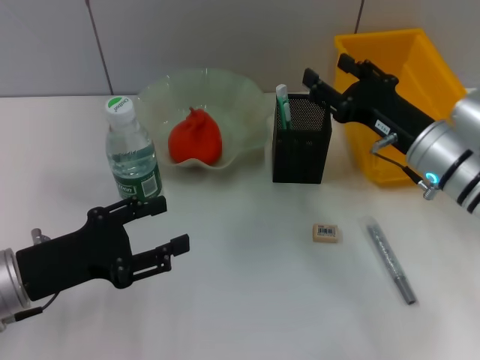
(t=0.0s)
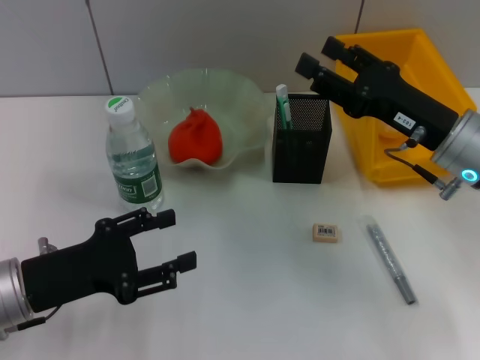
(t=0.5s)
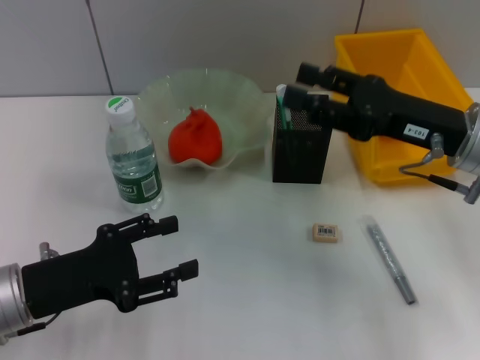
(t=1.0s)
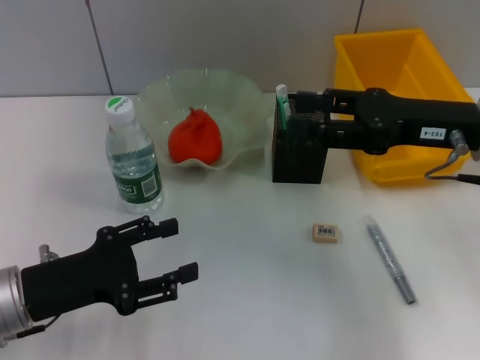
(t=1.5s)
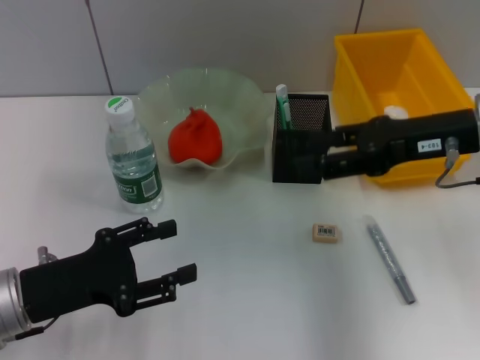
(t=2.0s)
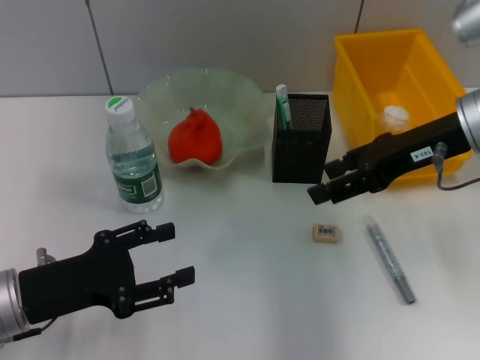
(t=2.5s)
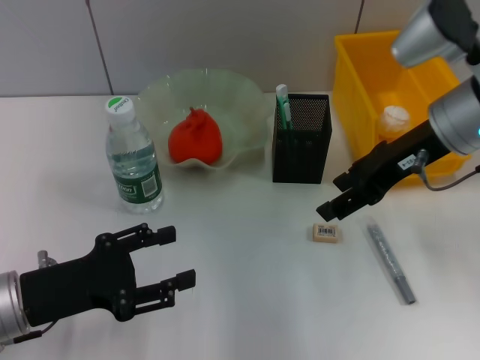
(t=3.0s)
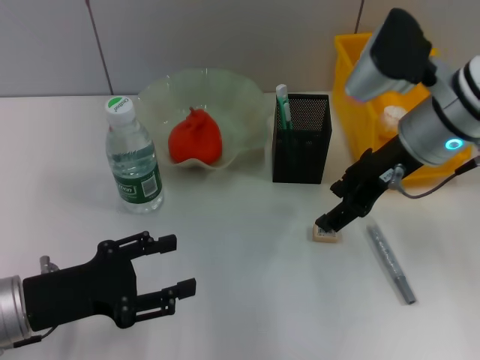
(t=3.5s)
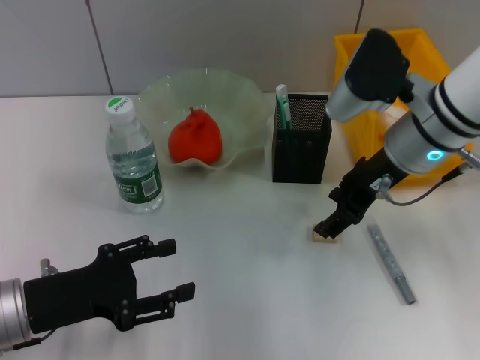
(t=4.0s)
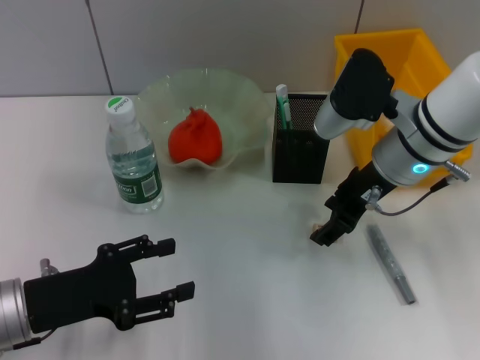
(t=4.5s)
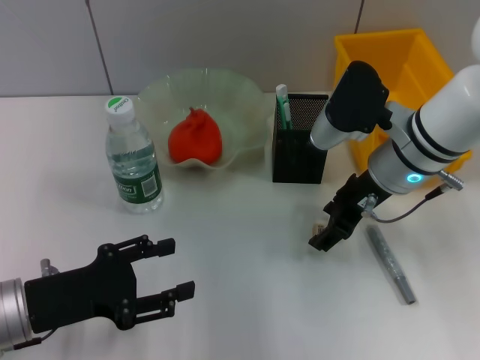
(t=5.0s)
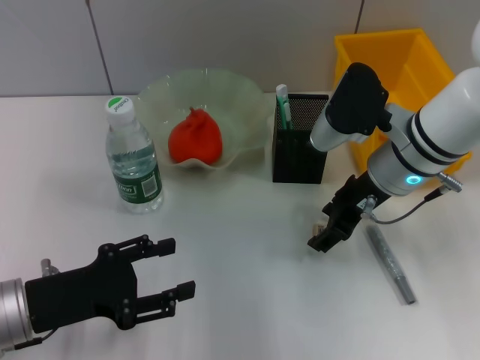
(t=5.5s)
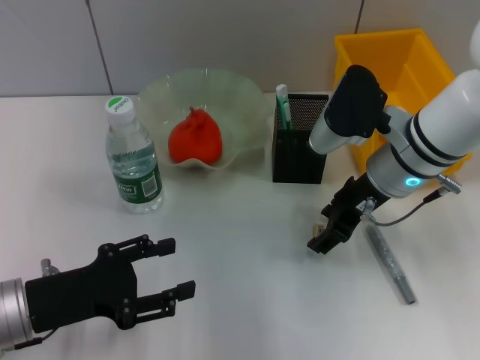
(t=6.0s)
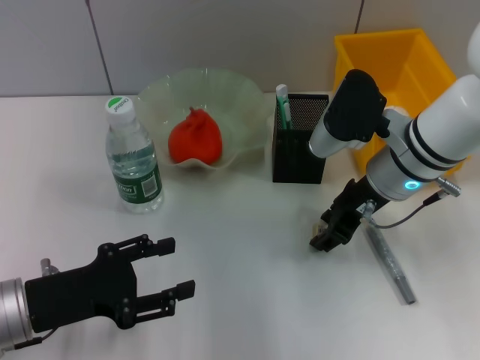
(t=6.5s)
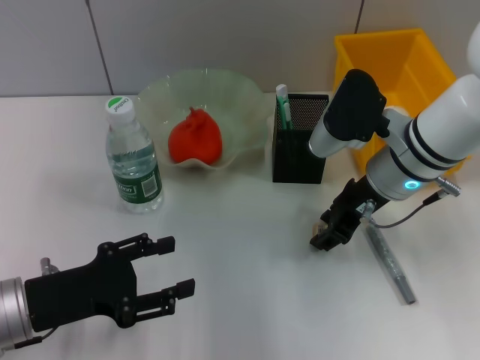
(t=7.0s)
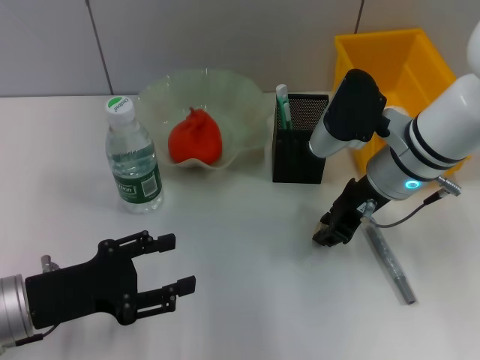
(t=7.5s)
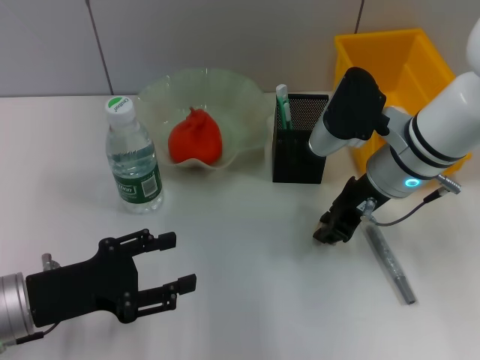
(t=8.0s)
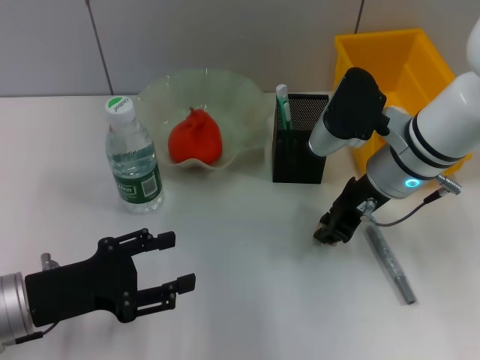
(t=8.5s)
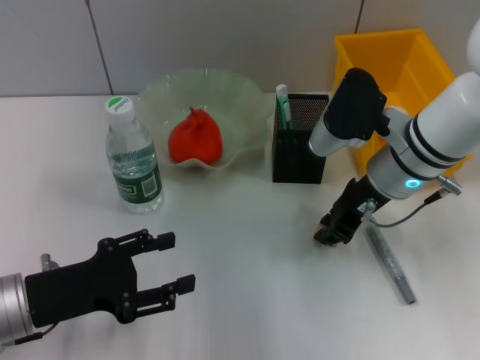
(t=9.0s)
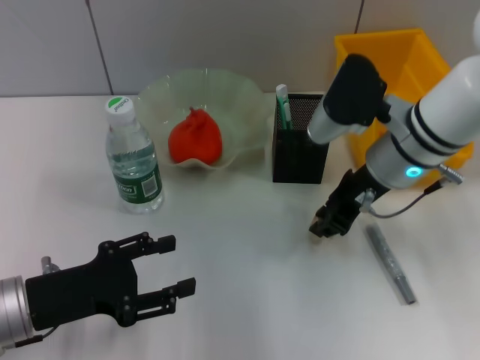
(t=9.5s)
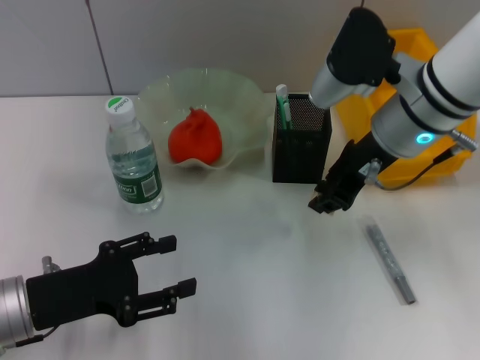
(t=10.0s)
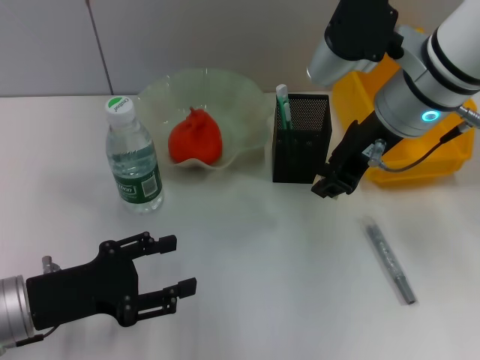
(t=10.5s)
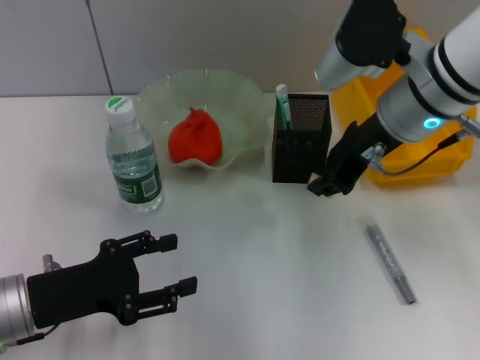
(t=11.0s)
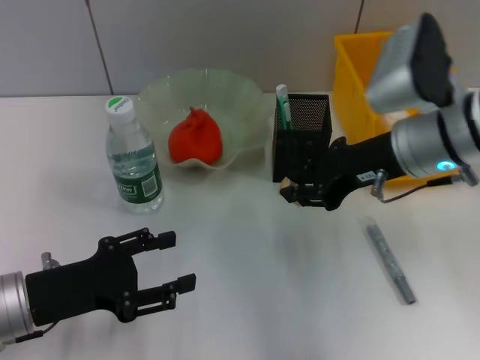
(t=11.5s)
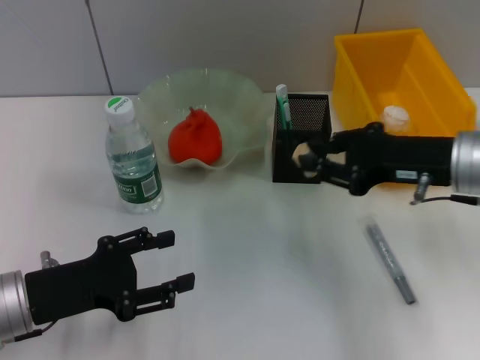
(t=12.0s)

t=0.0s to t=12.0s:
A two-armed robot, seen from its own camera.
Step, t=0.0s to t=8.0s: Grab the eraser with the right hand.
t=0.0s to t=2.0s: The right gripper heads upward, covering some 10 cm.
t=2.0s to t=4.0s: The right gripper heads to the left, covering some 5 cm.
t=4.0s to t=6.0s: The grippers make only small movements.
t=6.0s to t=8.0s: The right gripper closes its fingers.
t=8.0s to t=10.0s: The right gripper is displaced upward by roughly 5 cm.
t=10.0s to t=12.0s: The right gripper shifts some 10 cm to the right.

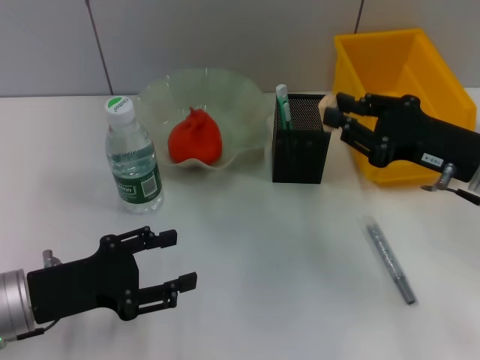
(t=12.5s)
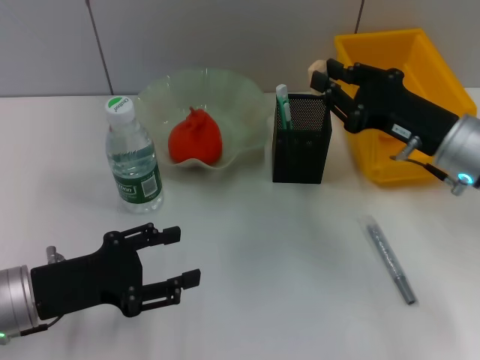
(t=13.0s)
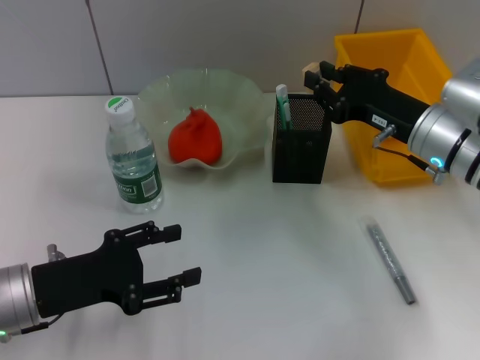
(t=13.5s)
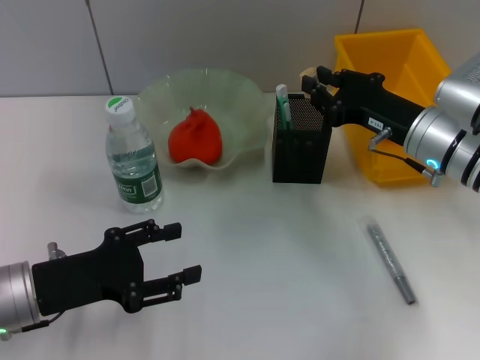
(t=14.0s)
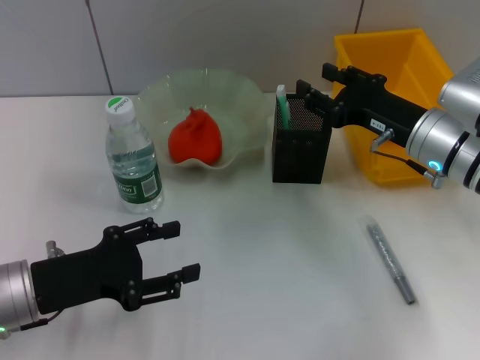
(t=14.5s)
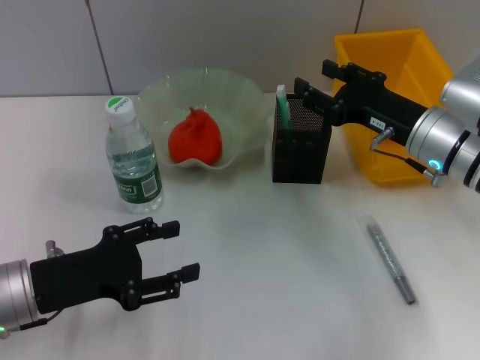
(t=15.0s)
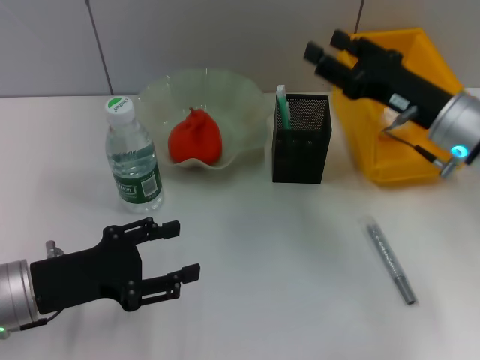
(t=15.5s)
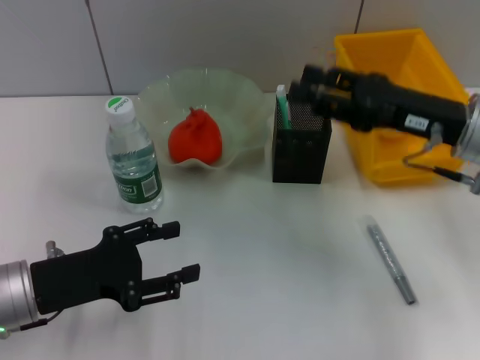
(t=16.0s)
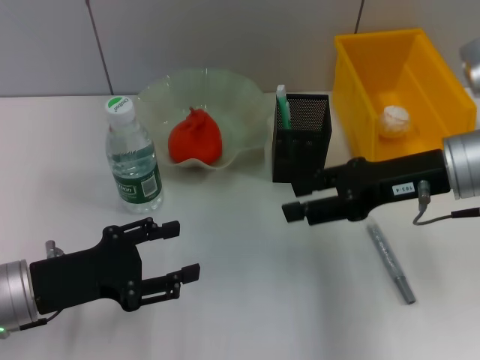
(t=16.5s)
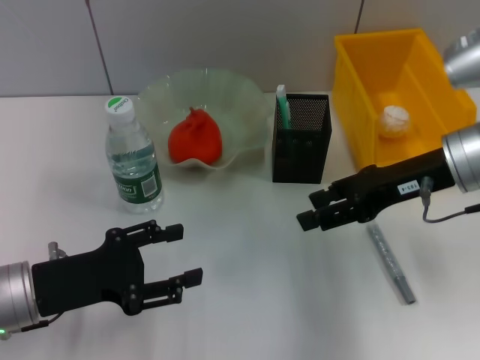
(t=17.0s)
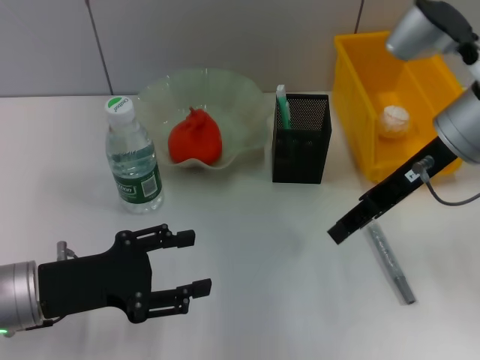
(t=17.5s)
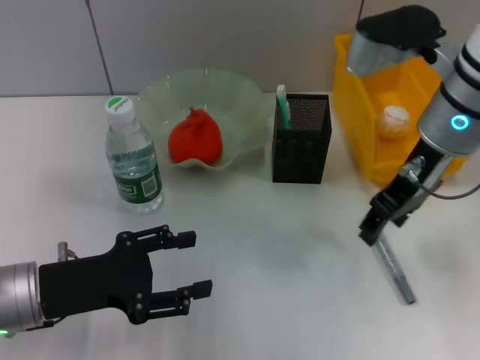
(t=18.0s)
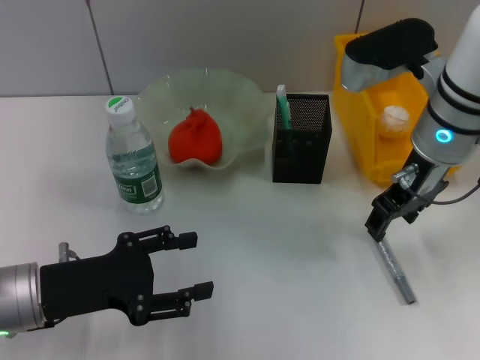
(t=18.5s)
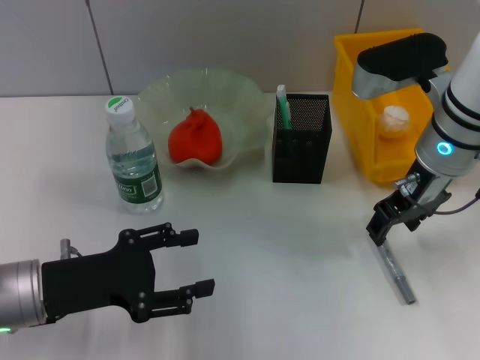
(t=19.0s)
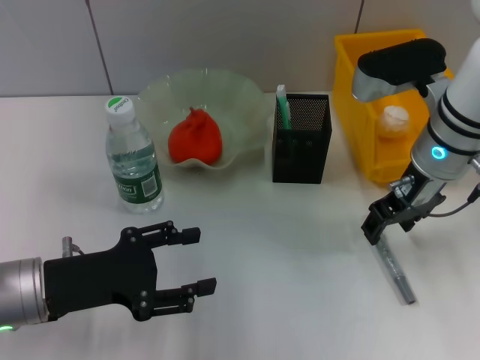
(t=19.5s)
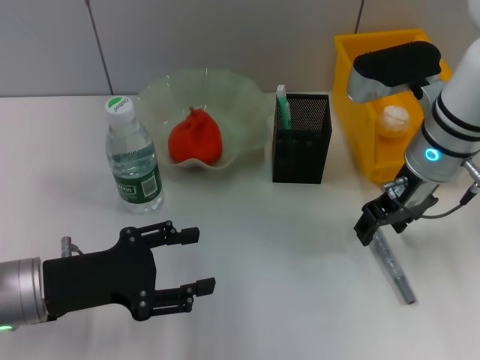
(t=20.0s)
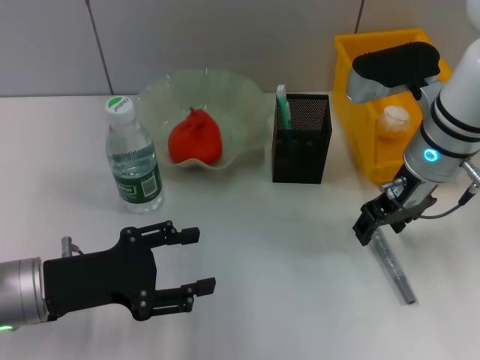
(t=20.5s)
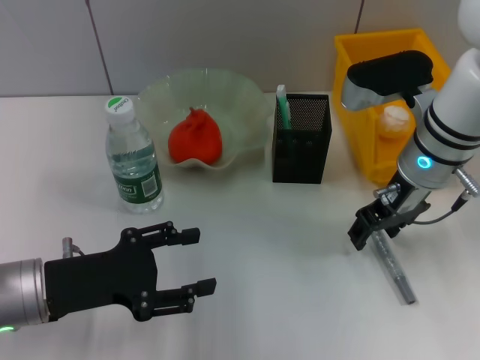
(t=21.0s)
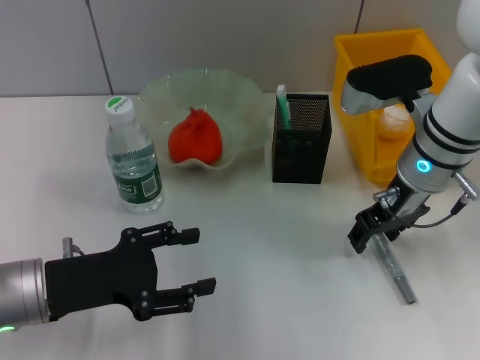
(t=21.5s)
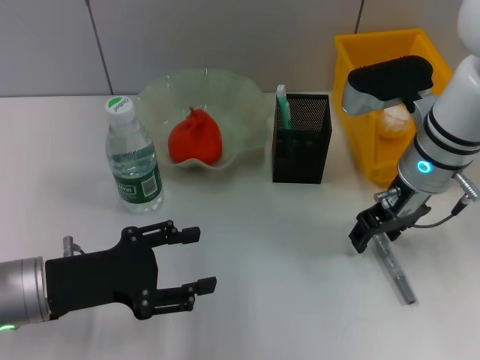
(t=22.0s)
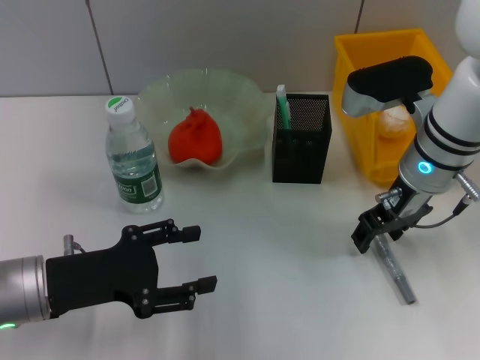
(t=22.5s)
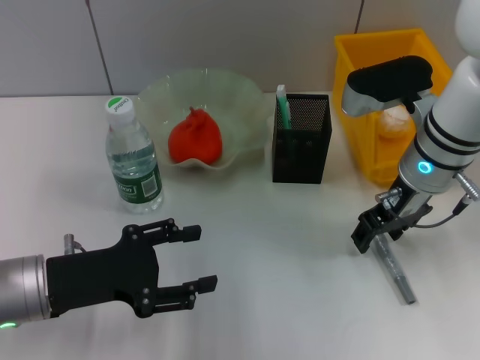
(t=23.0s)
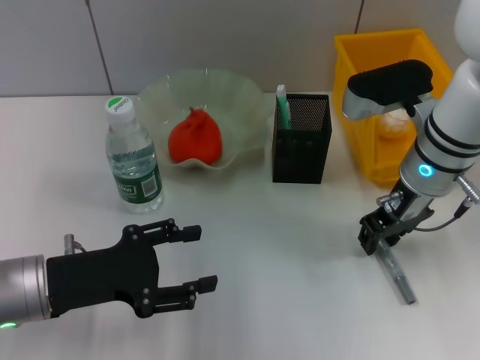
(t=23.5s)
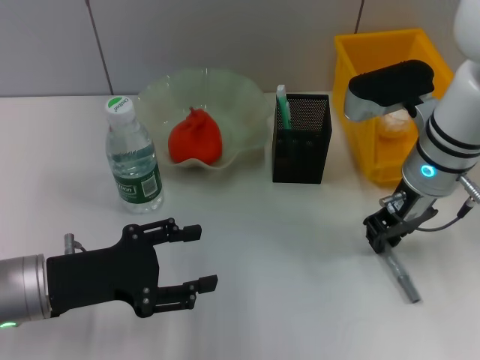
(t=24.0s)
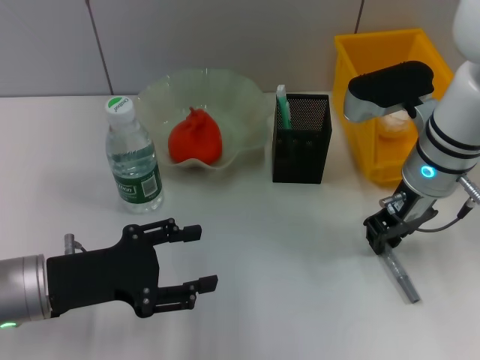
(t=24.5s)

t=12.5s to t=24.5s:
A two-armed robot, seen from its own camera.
t=12.5s to t=14.5s: The right gripper heads forward, covering about 5 cm.
t=14.5s to t=16.5s: The right gripper moves upward, some 5 cm.
t=16.5s to t=18.5s: The right gripper shifts some 5 cm to the left.
t=18.5s to t=22.5s: The grippers move only a little.
t=22.5s to t=24.5s: The right gripper closes.

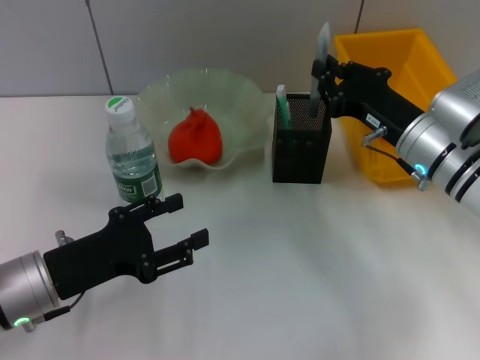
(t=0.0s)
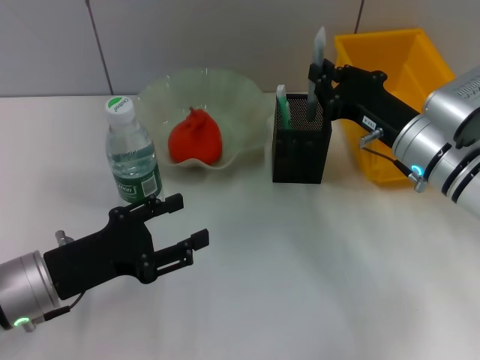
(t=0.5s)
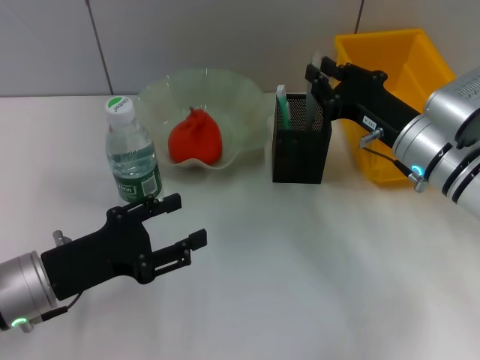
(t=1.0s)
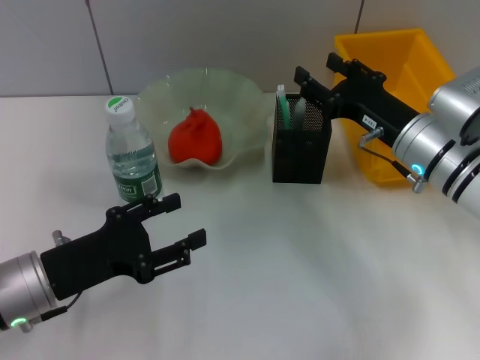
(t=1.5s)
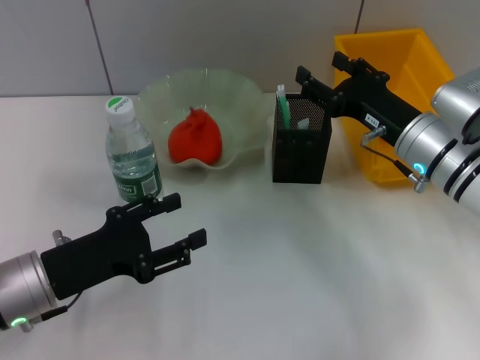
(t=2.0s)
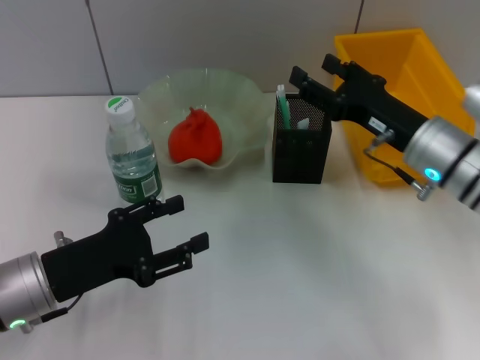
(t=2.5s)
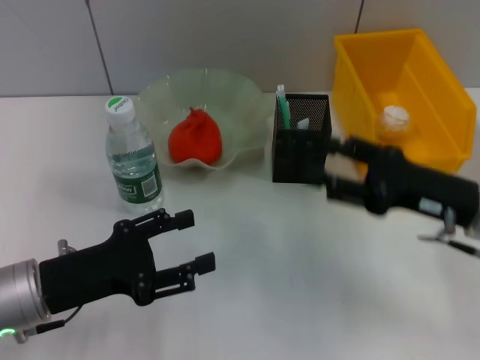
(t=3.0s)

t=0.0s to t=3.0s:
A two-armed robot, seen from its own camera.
t=0.0s to t=1.5s: The right gripper opens its fingers.
t=1.5s to t=3.0s: The right gripper travels backward and to the right by about 10 cm, and opens up.
